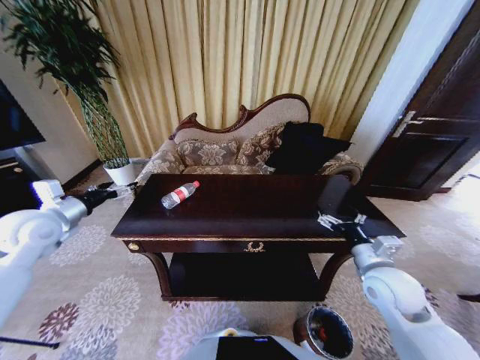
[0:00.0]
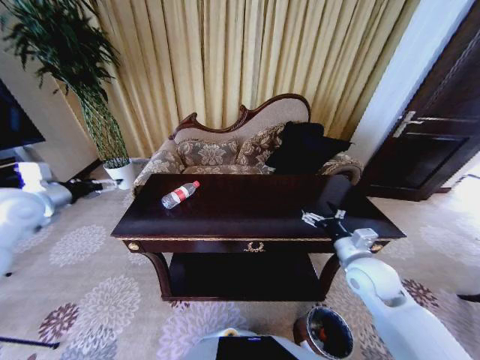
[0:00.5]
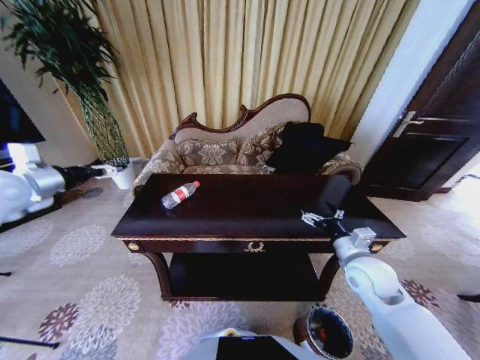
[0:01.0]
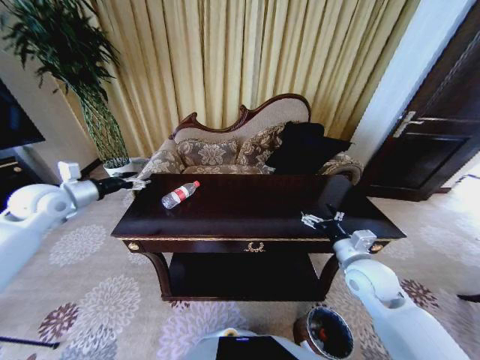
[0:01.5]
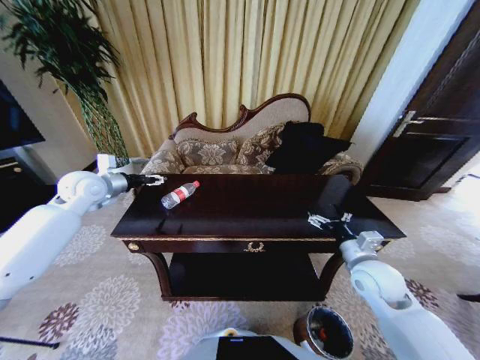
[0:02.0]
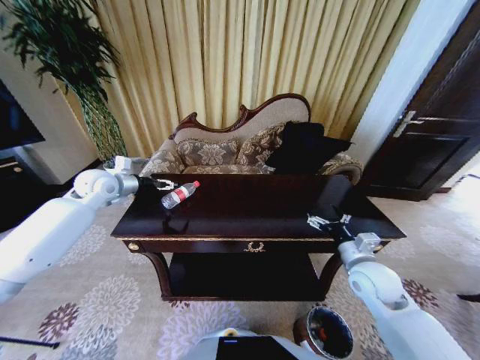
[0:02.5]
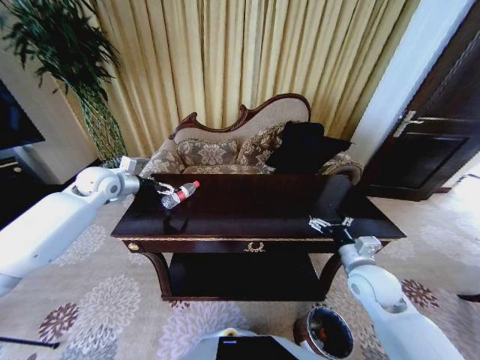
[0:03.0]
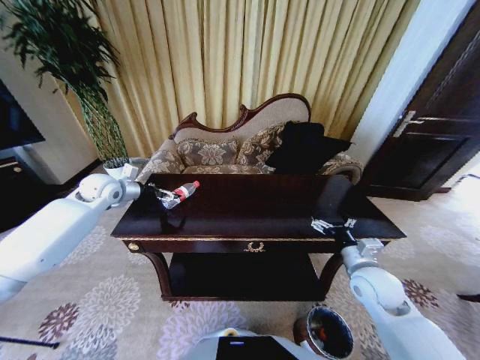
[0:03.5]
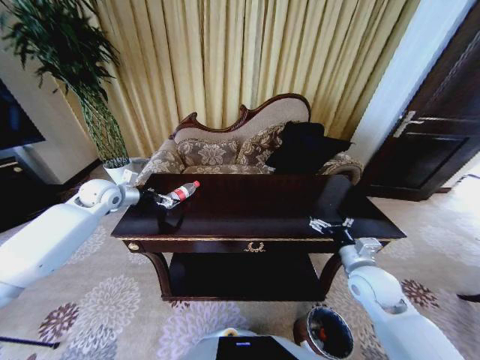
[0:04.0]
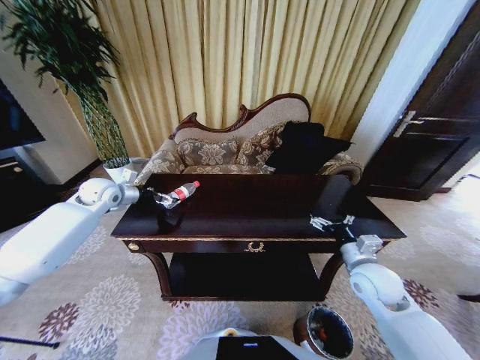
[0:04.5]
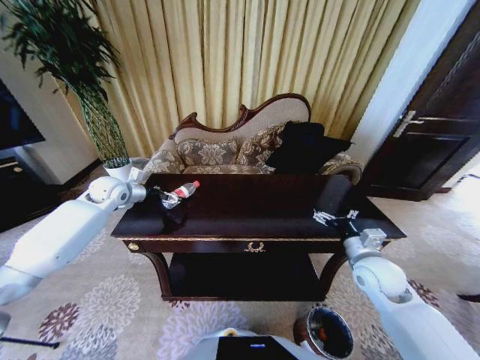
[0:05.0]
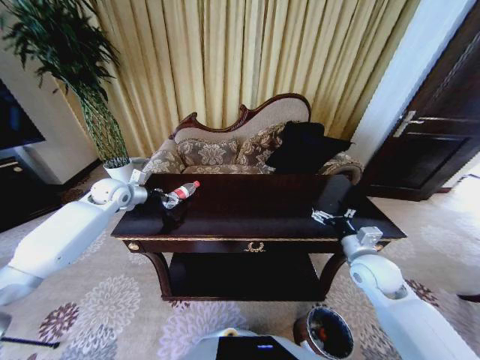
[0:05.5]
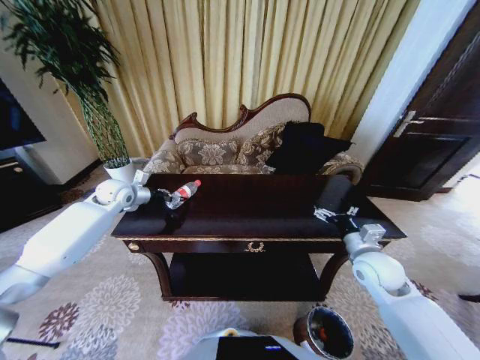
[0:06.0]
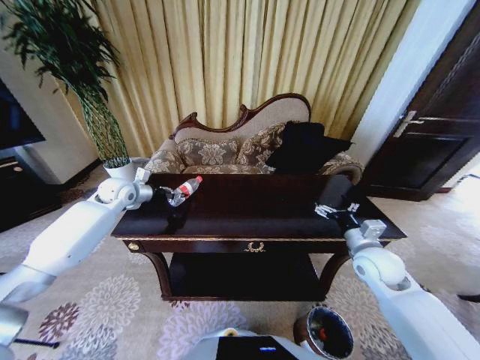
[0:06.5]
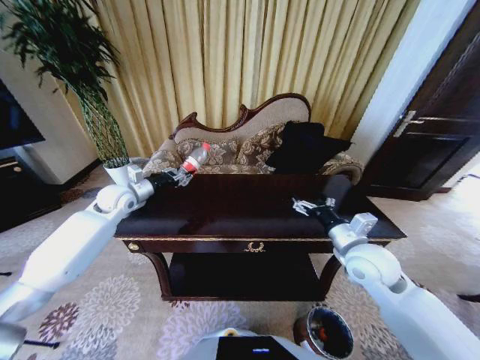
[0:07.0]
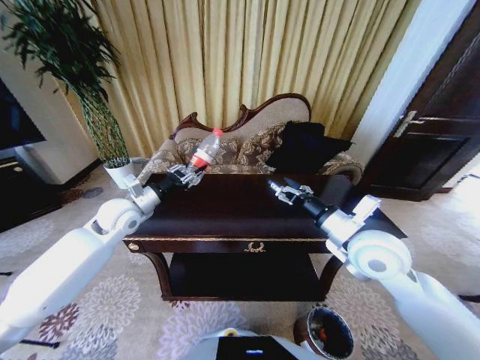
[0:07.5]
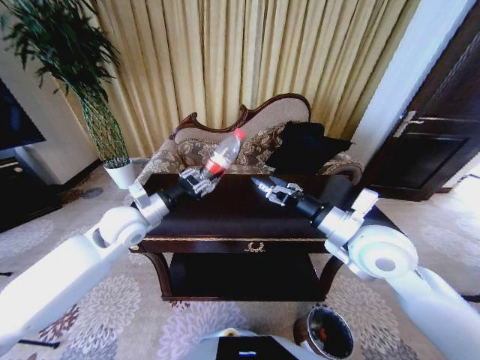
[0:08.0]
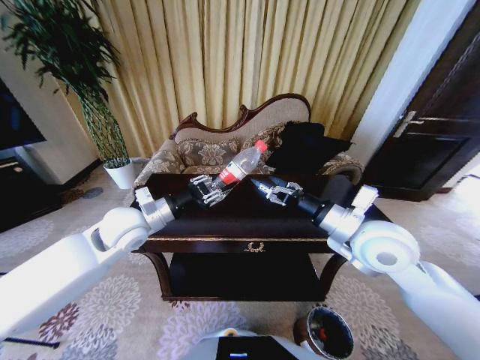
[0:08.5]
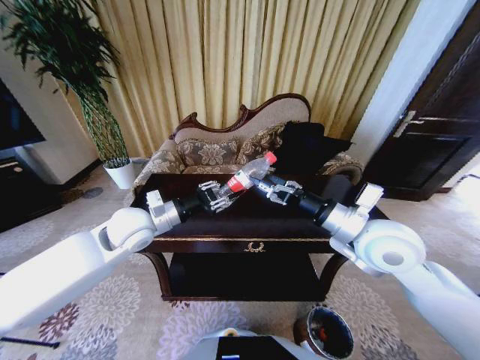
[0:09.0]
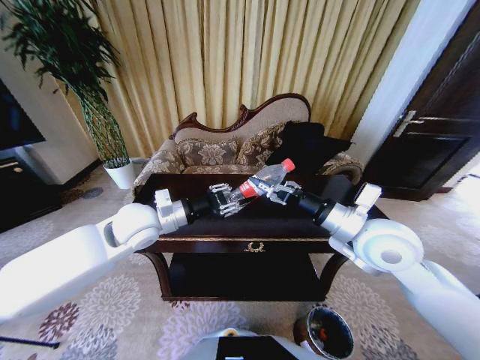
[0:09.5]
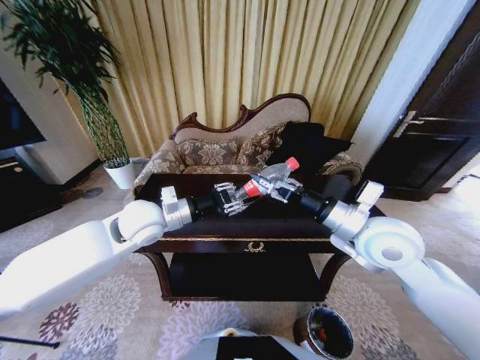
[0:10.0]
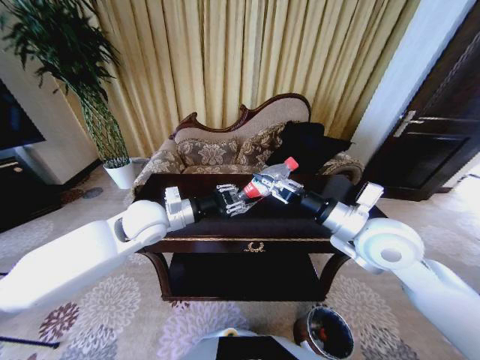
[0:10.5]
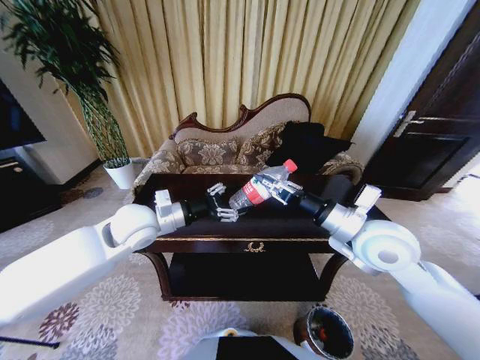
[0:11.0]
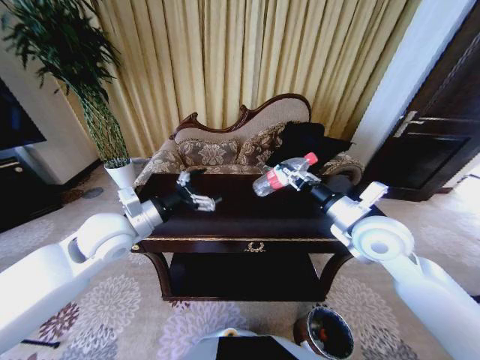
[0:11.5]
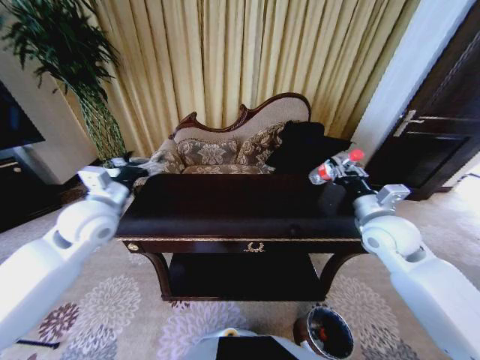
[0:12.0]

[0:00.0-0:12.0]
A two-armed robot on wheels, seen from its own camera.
Task of the whole recording: Move to the front of the table and place the trash on the table into the trash bin.
0:00.0 to 0:02.0: The left gripper moves forward and to the right, some 15 cm.
0:02.0 to 0:04.0: The left gripper heads downward, covering approximately 5 cm.
0:04.0 to 0:06.0: The left gripper closes up.
0:06.0 to 0:08.0: The right gripper is displaced upward and to the left by some 20 cm, while the left gripper goes roughly 20 cm backward and to the right.
0:08.0 to 0:10.0: The left gripper goes roughly 5 cm to the right.
0:10.0 to 0:12.0: The left gripper travels to the left by roughly 10 cm, and opens up. Meanwhile the right gripper goes about 10 cm to the right and downward, and closes its fingers.

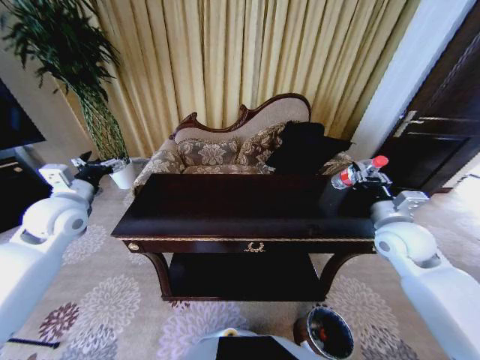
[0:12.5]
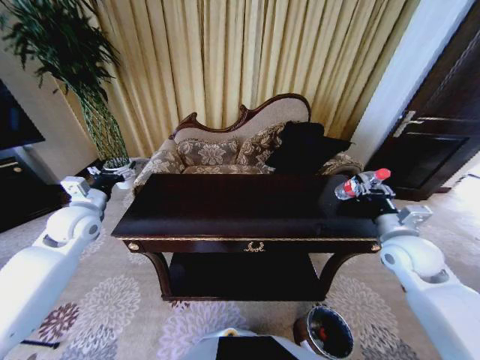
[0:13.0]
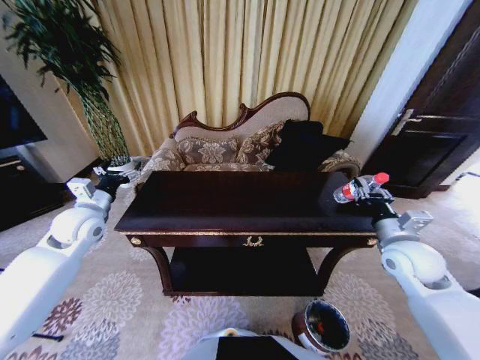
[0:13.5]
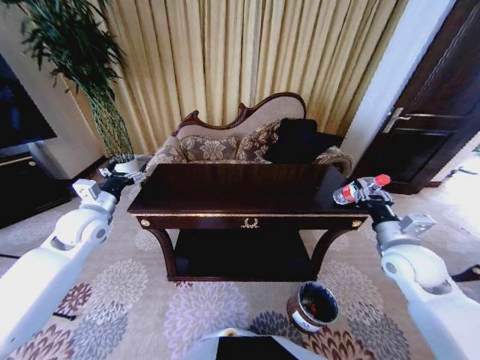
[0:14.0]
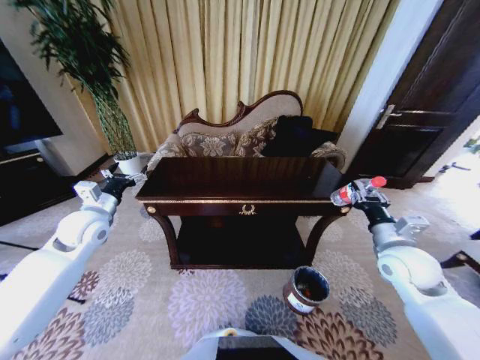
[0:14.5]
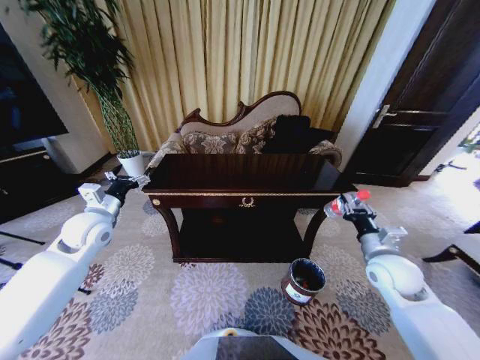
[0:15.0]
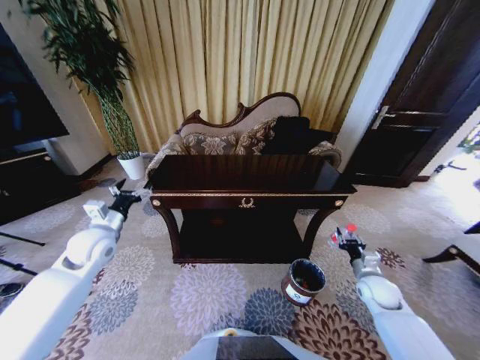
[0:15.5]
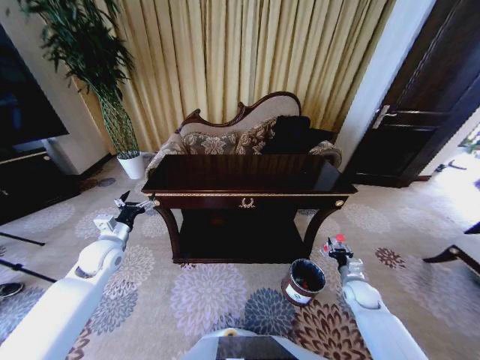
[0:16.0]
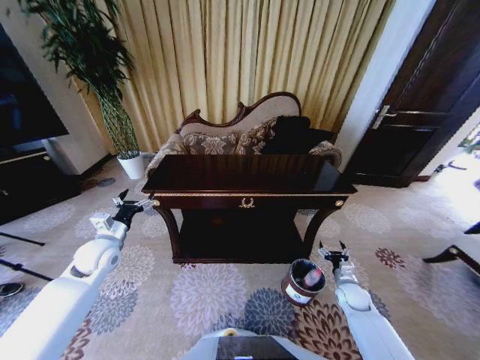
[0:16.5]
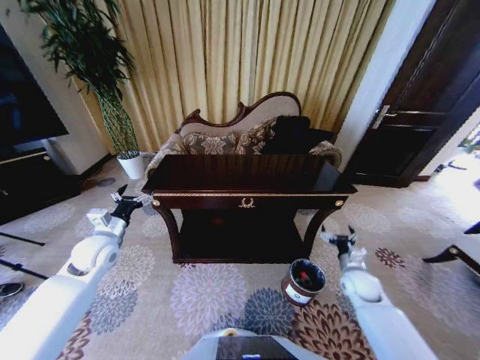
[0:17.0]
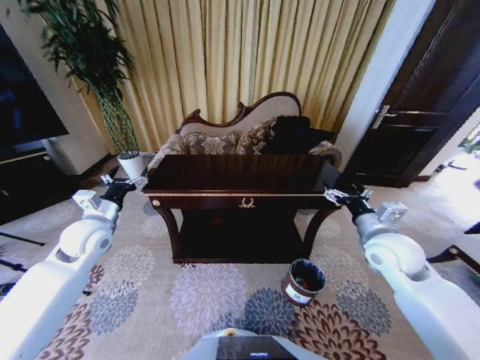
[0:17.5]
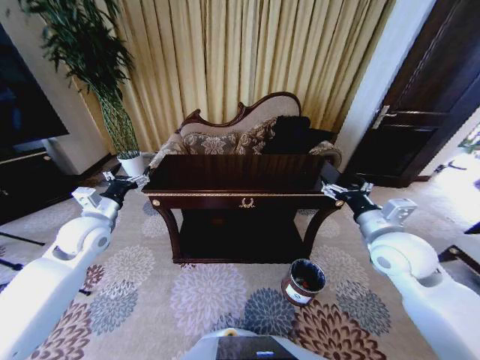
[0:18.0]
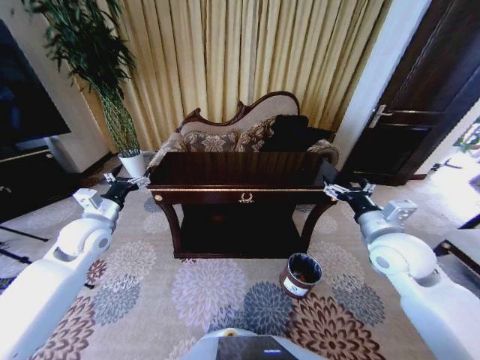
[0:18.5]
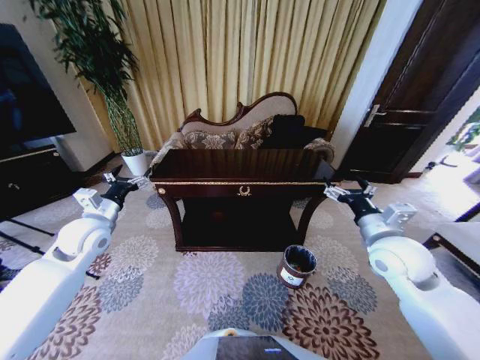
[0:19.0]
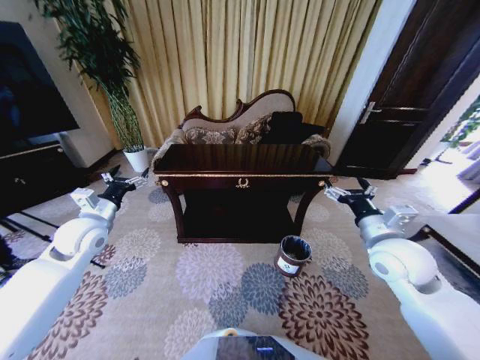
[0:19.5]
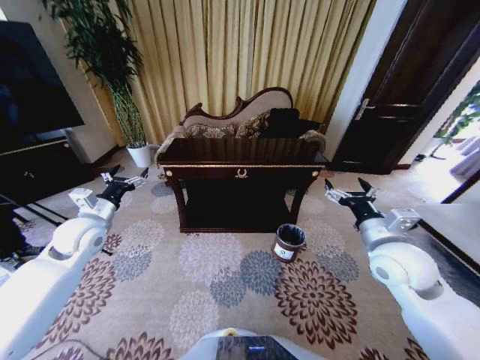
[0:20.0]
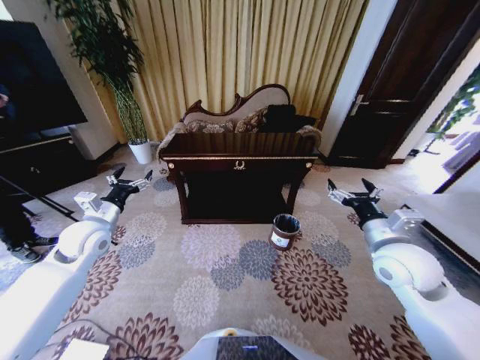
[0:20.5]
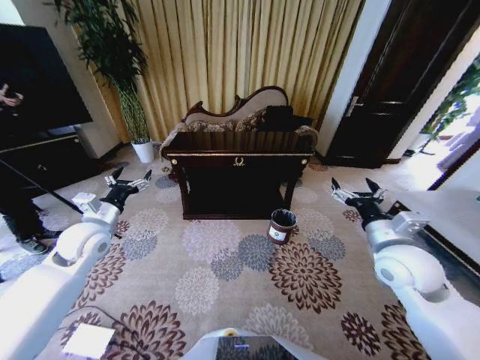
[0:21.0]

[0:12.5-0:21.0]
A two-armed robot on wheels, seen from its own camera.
Task of the whole recording: Move to the front of the table and place the trash on the table into the trash bin.
0:12.5 to 0:14.5: The right gripper ends up about 5 cm from where it was. Meanwhile the left gripper moves roughly 5 cm.
0:14.5 to 0:16.5: The left gripper heads downward, covering approximately 10 cm. The right gripper goes some 25 cm downward, and opens its fingers.
0:16.5 to 0:19.0: The right gripper travels upward by roughly 30 cm, while the left gripper goes roughly 10 cm upward.

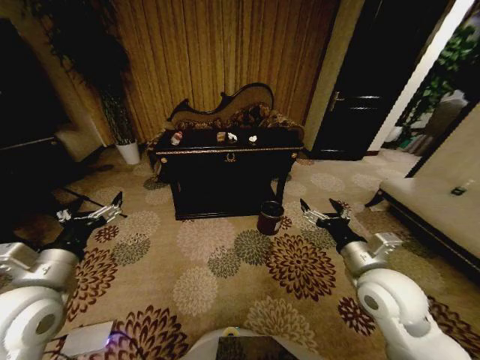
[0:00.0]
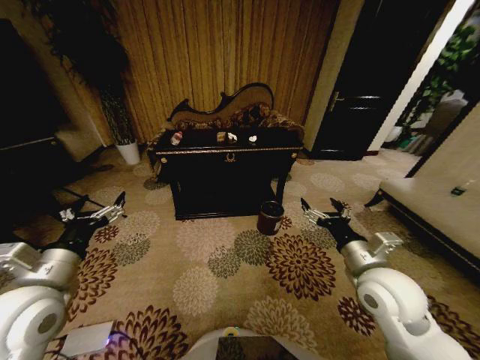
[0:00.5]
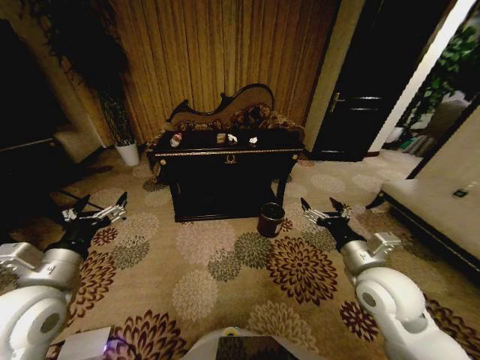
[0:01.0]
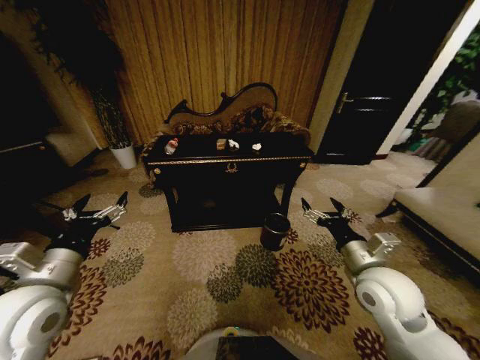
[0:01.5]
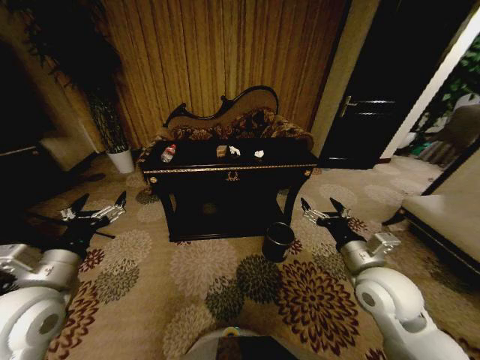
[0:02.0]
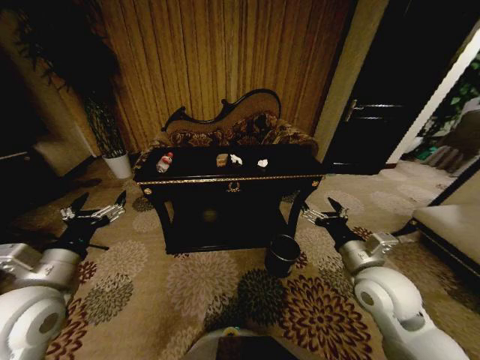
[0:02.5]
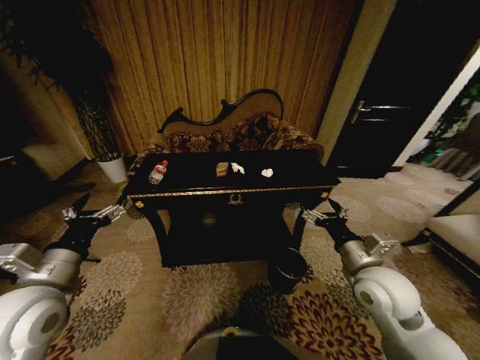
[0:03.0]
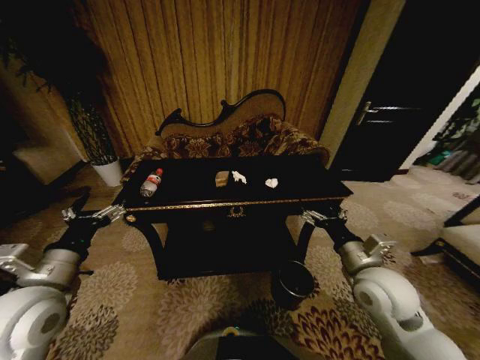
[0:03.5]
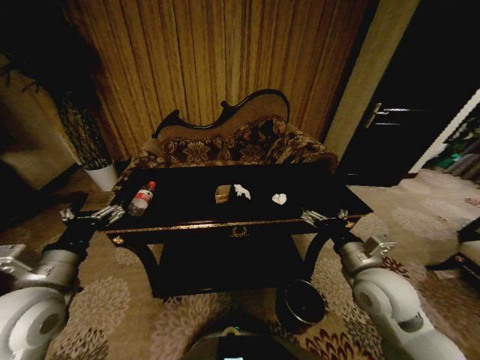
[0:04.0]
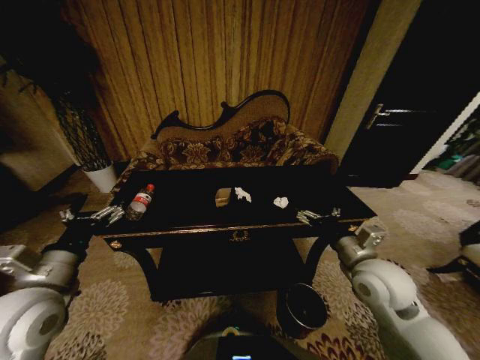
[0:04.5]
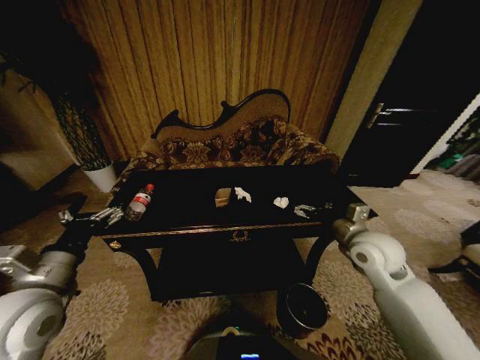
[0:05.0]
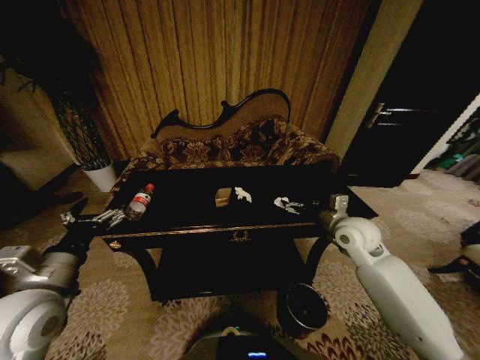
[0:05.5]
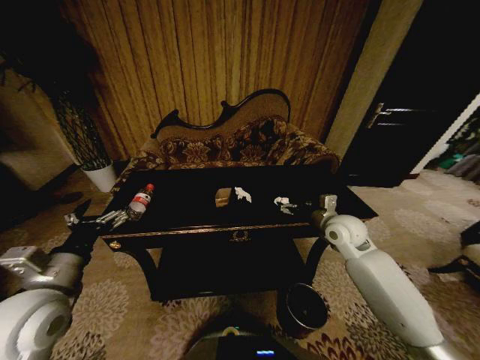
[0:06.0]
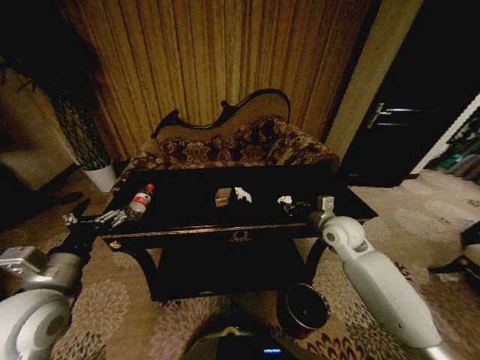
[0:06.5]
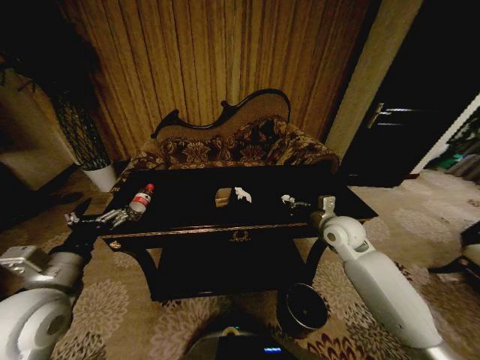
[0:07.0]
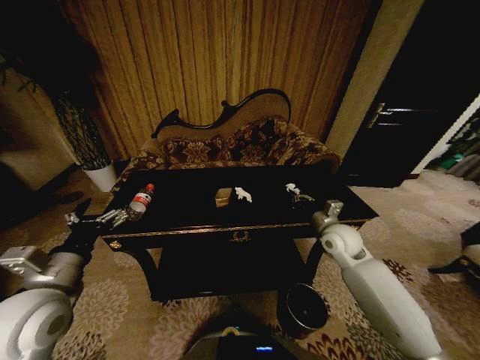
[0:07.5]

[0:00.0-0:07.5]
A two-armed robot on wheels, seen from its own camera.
Task of the whole recording: Move to the front of the table and place the trash on the table into the trash bin.
0:04.0 to 0:05.5: The right gripper heads forward, covering some 15 cm.
0:05.5 to 0:07.5: The right gripper travels downward by about 5 cm, and closes its fingers.
